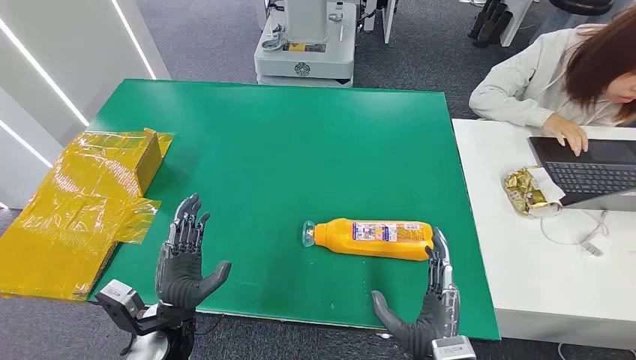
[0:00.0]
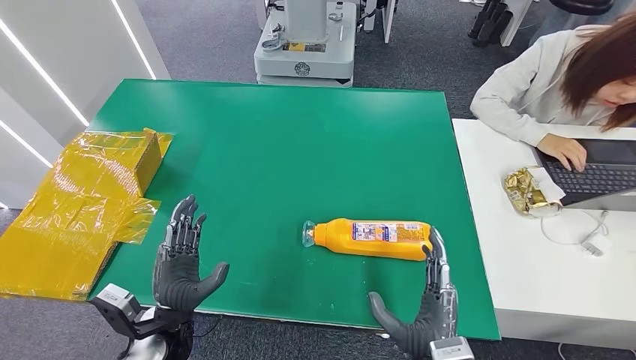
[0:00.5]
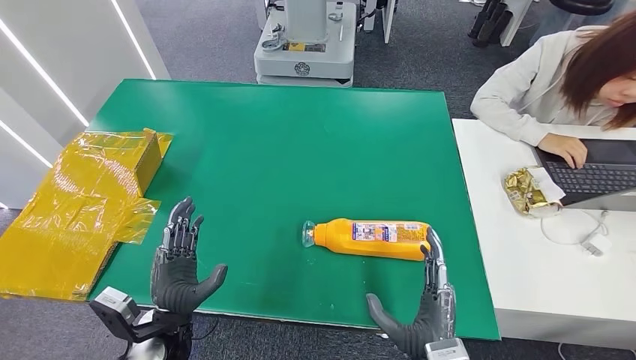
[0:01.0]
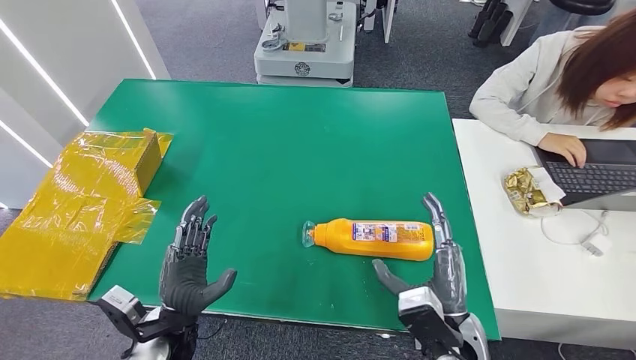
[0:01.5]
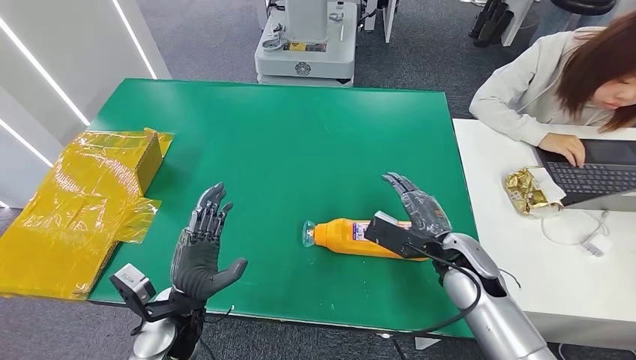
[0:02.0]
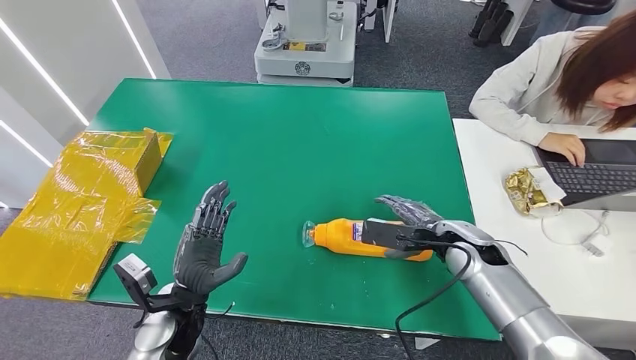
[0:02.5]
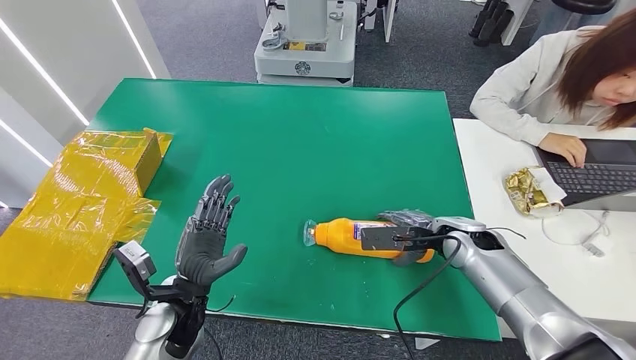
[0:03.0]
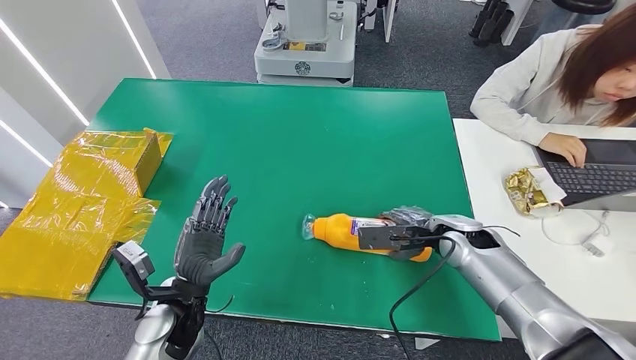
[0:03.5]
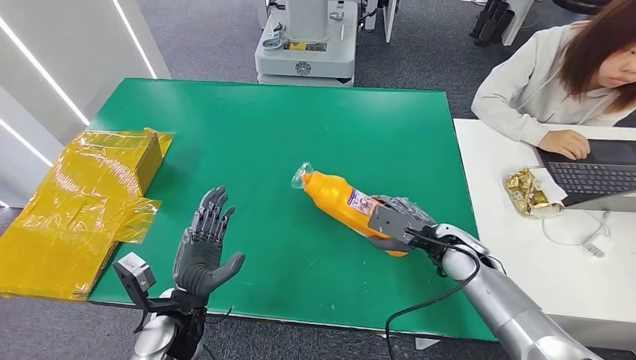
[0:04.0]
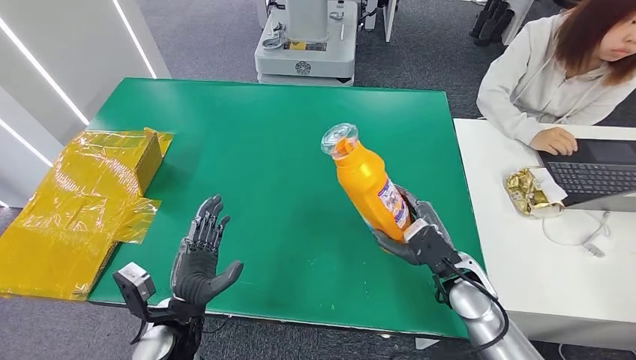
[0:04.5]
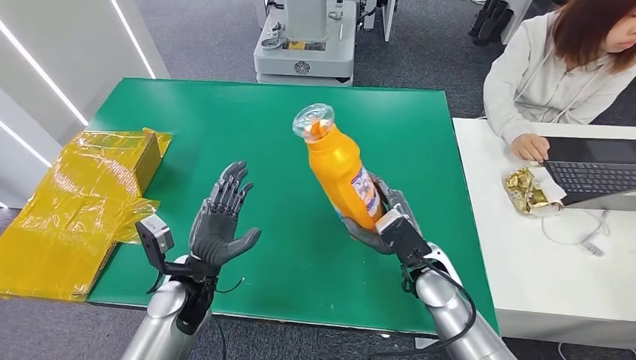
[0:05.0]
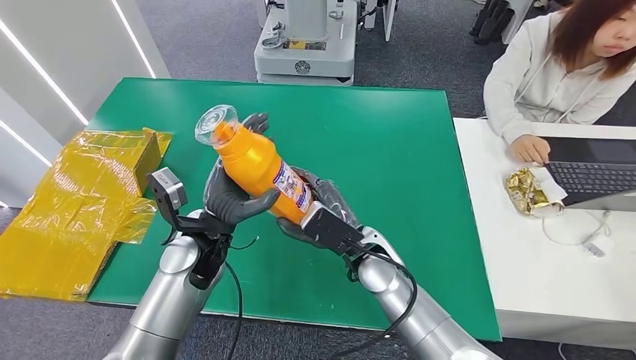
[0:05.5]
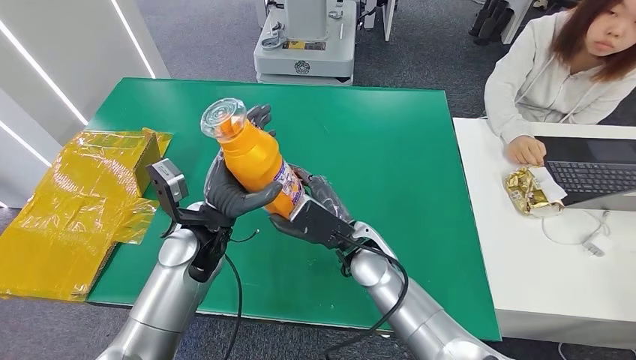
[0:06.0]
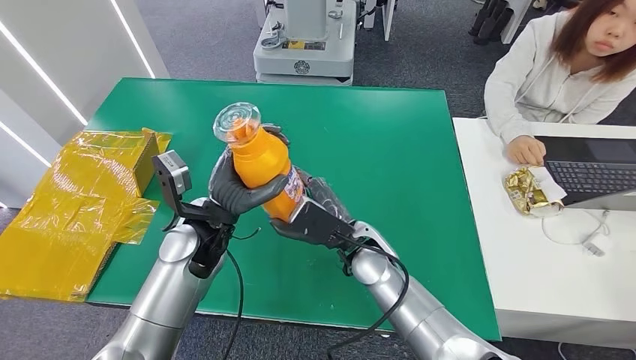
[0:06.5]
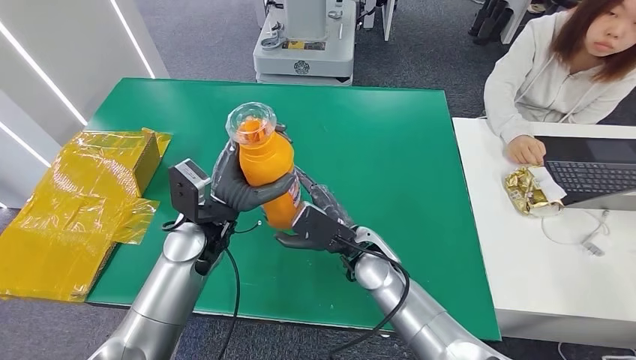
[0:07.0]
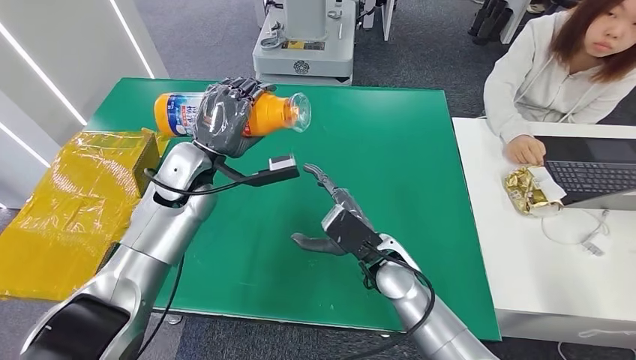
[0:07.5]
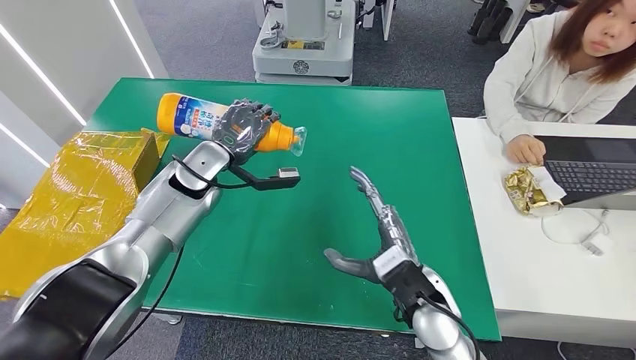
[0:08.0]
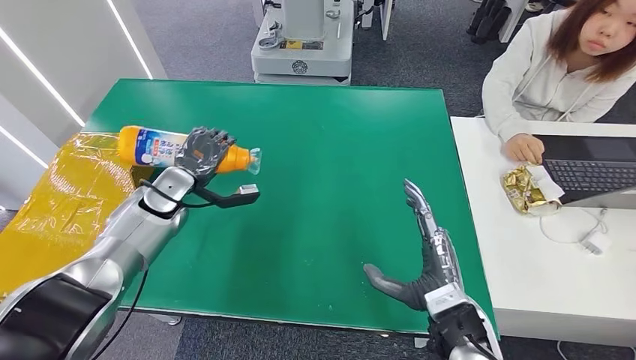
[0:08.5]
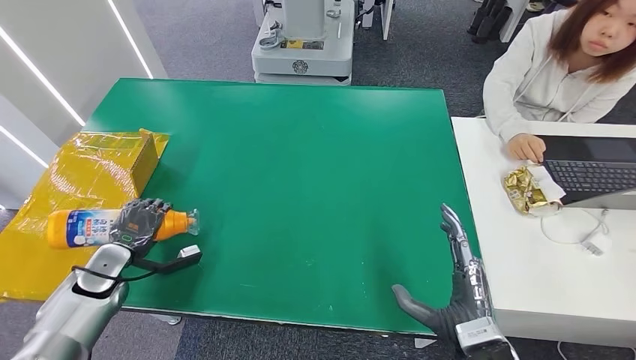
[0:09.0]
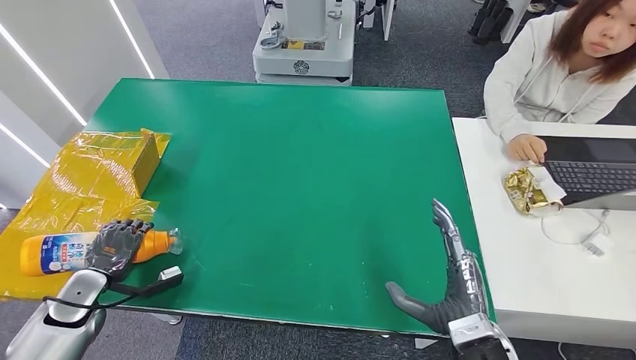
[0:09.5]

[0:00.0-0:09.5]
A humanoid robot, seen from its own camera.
Step, 0:00.0 to 0:04.0: Pick up the bottle from the table.
0:07.5 to 0:09.5: The left hand goes some 35 cm to the left, downward and backward; the right hand shifts some 20 cm backward and to the right.

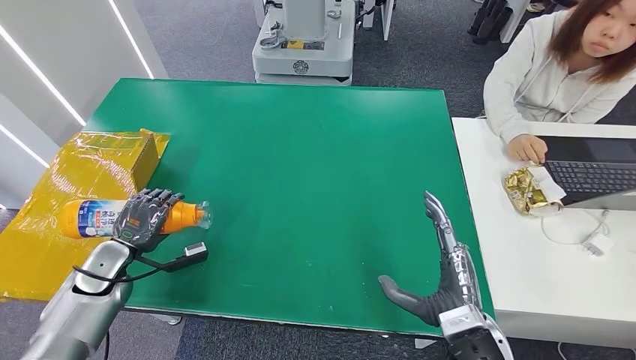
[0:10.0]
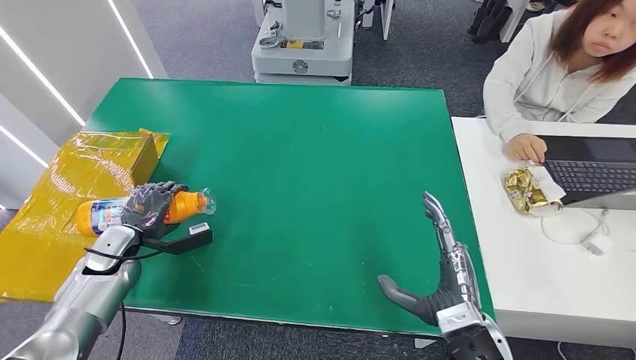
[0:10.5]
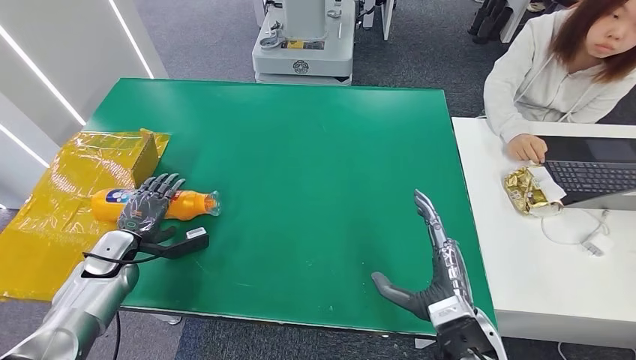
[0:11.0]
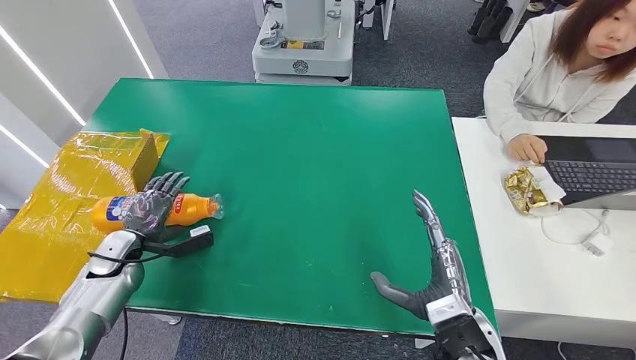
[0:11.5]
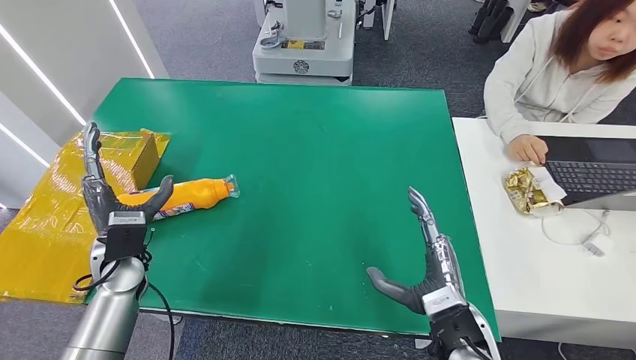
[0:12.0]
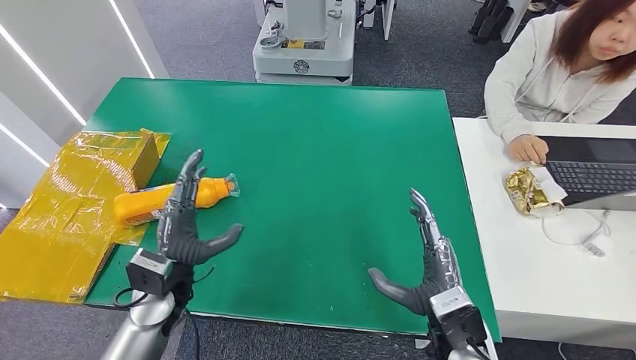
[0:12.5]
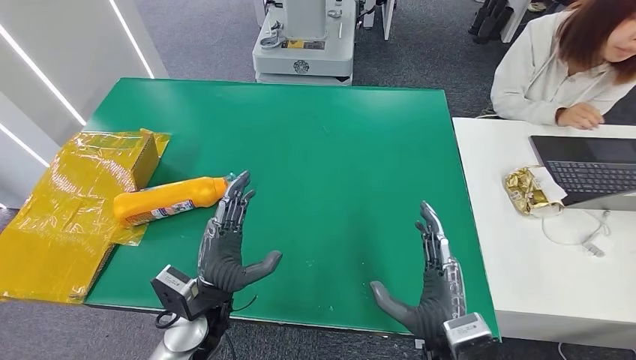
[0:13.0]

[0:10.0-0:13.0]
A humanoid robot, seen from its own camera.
Step, 0:10.0 to 0:13.0: Turn the bottle to the front side.
0:10.0 to 0:11.5: There are only small adjustments of the hands.
0:11.5 to 0:13.0: The left hand is displaced to the right and backward by roughly 25 cm.
